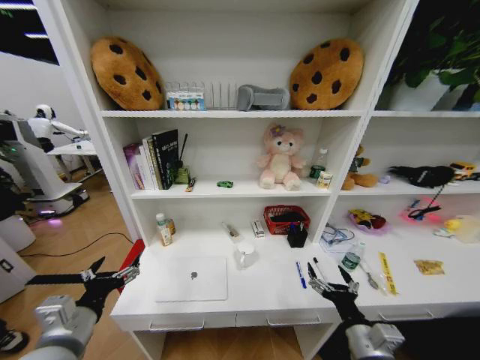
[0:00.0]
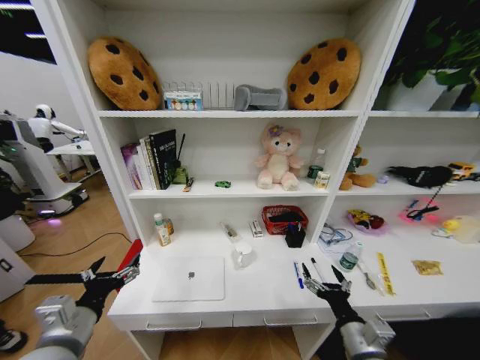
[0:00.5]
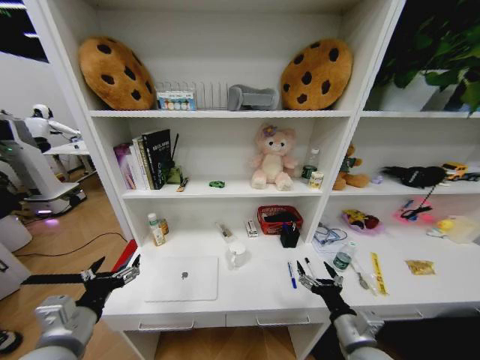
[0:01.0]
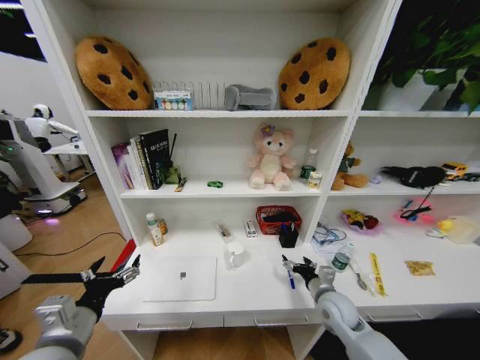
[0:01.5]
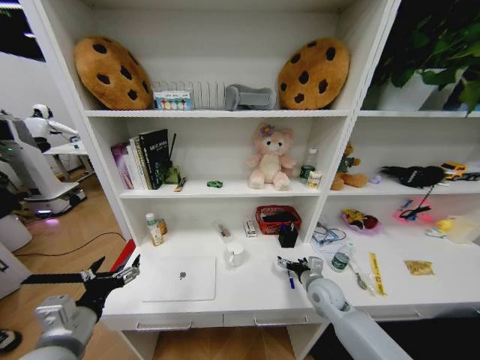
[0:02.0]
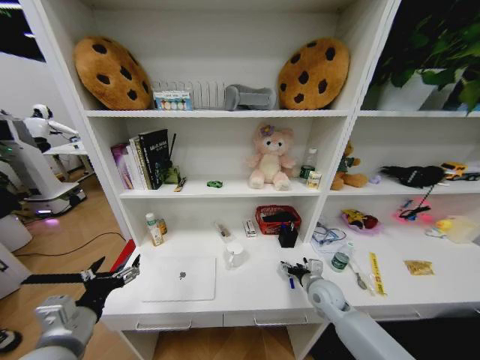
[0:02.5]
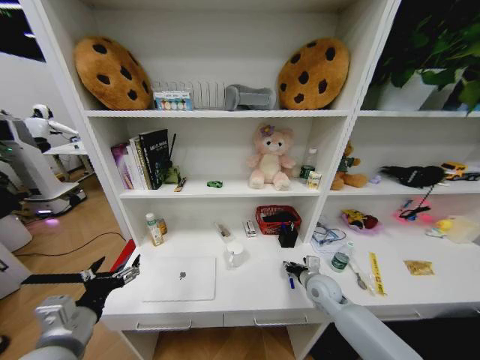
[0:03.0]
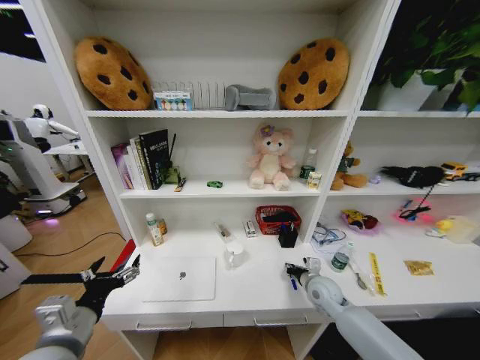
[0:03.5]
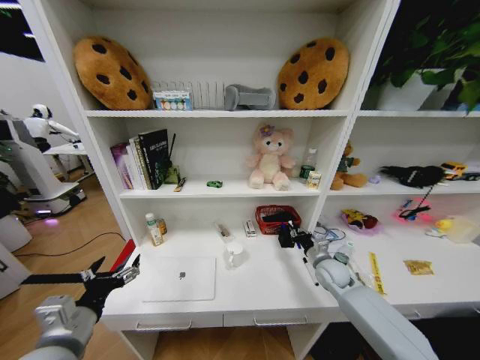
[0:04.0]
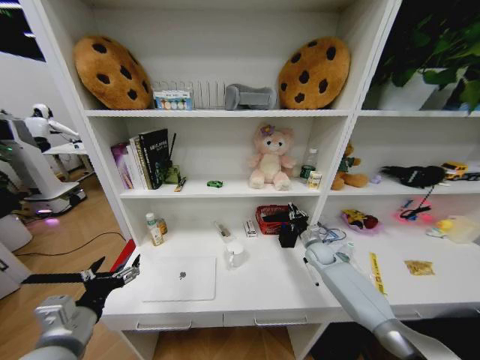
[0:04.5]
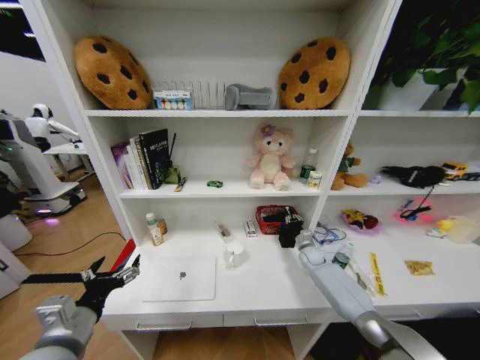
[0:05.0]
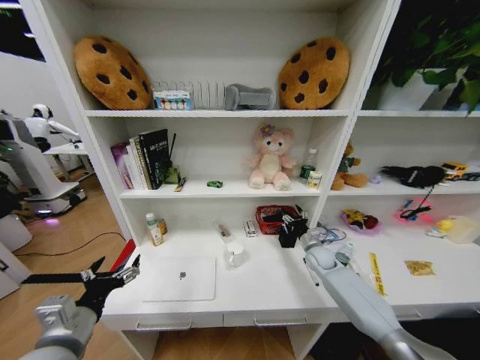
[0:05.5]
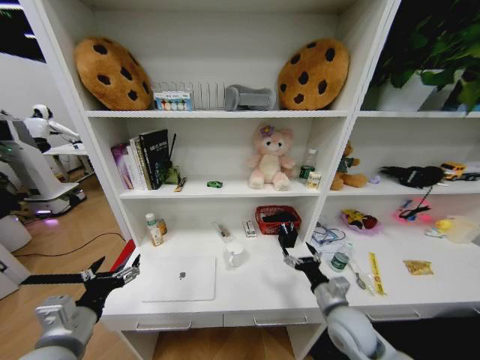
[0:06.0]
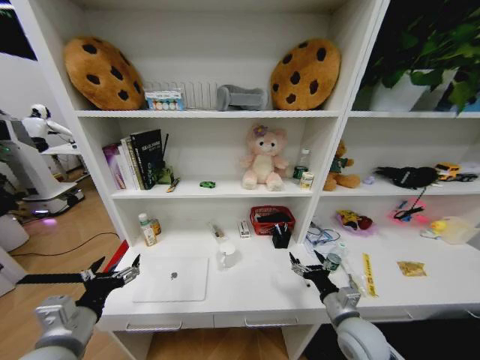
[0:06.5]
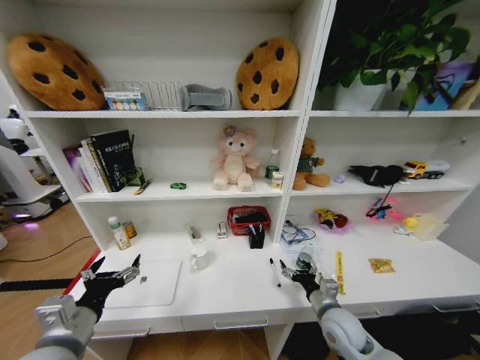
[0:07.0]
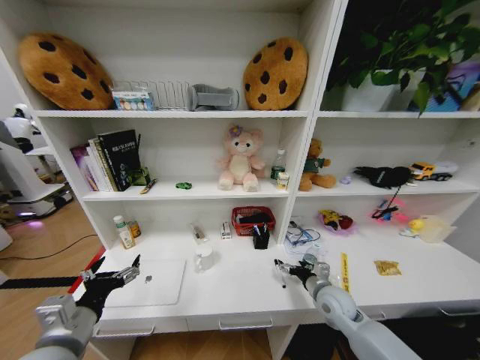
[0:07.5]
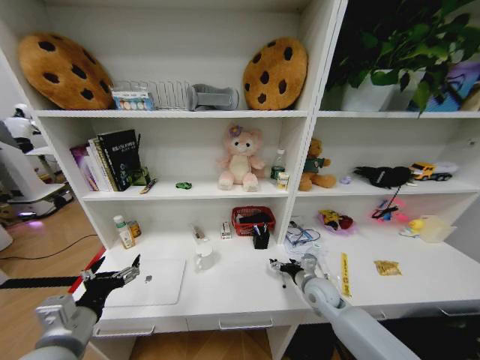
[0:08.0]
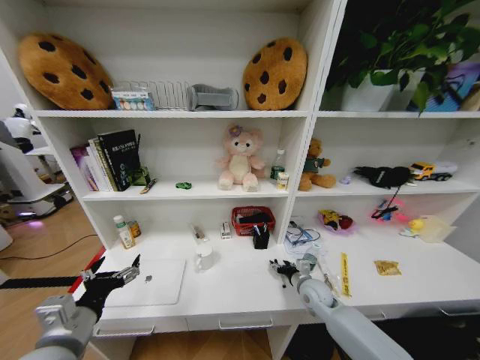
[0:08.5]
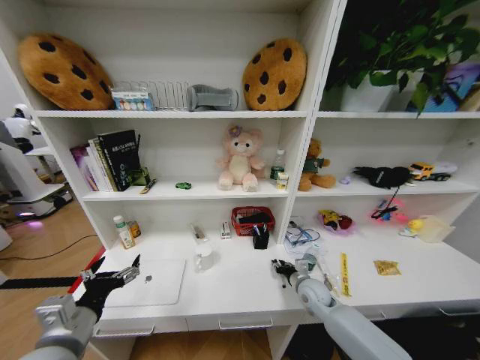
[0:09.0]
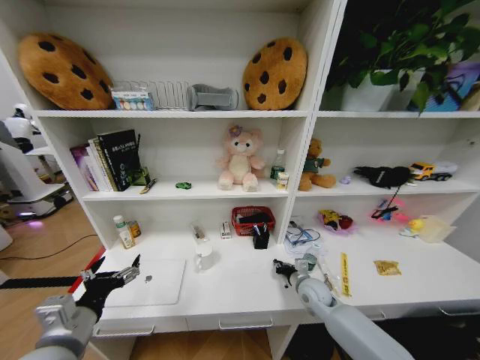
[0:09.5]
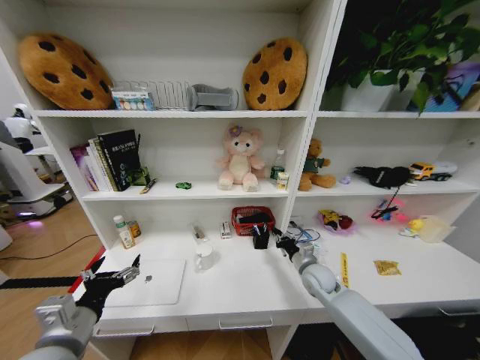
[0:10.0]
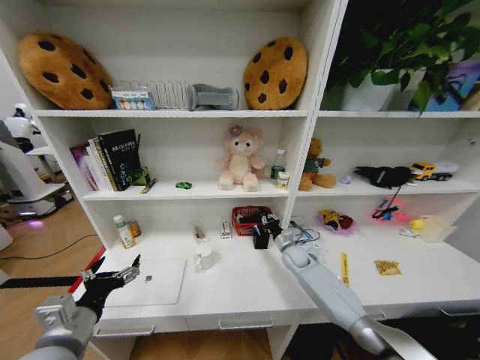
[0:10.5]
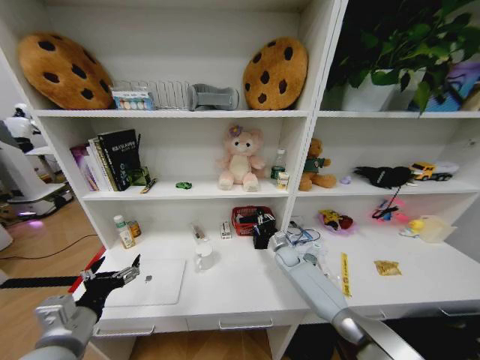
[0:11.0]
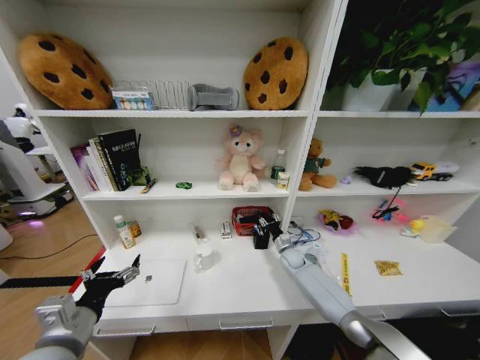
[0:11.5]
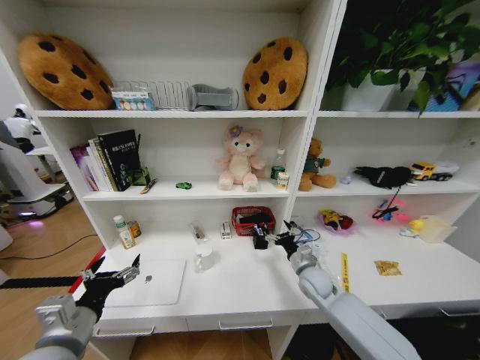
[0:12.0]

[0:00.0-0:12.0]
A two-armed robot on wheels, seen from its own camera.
Task of the whole recording: Organize the objects on the table.
0:00.0 to 0:02.0: The right gripper shifts some 20 cm forward.
0:02.0 to 0:04.0: The right gripper is displaced forward by about 5 cm, and closes.
0:04.0 to 0:06.0: The right gripper goes forward and returns, approximately 10 cm each way, and opens up.
0:06.0 to 0:08.0: The right gripper goes backward and returns, about 10 cm each way.
0:08.0 to 0:10.0: The right gripper closes.
0:10.0 to 0:12.0: The right gripper travels forward and back again, some 10 cm each way, and opens.

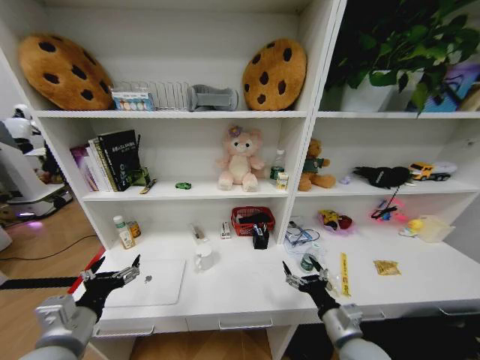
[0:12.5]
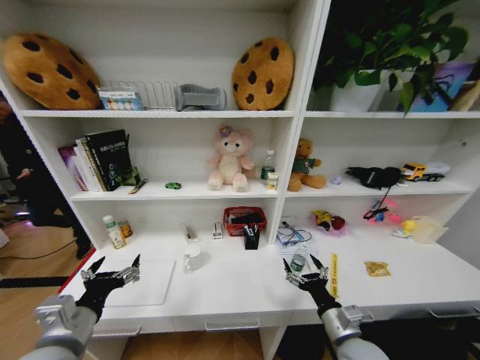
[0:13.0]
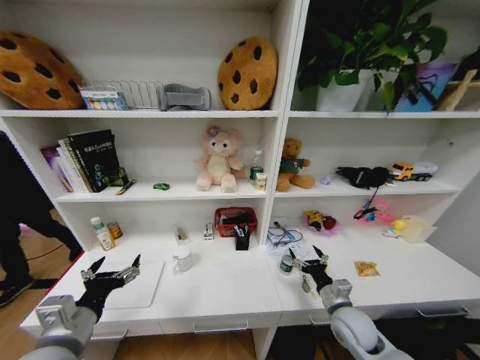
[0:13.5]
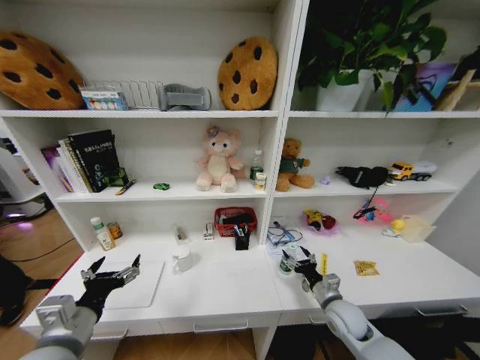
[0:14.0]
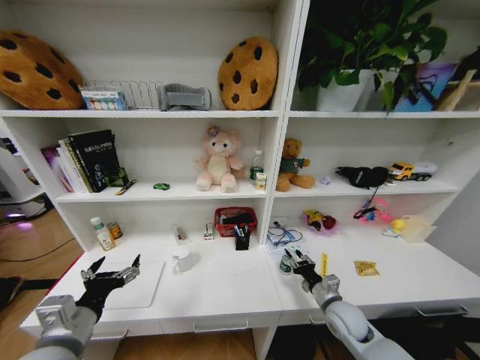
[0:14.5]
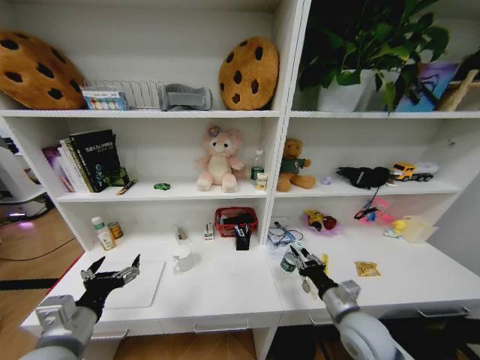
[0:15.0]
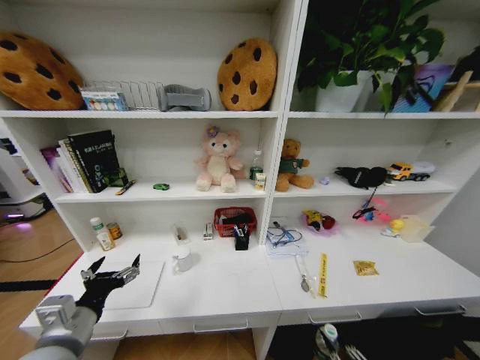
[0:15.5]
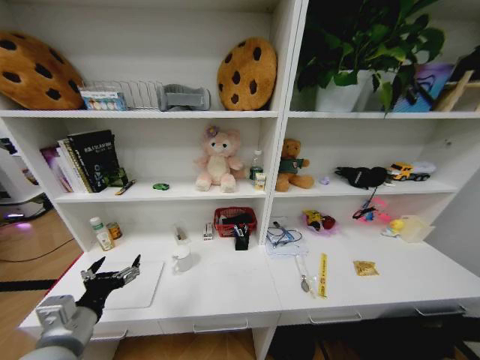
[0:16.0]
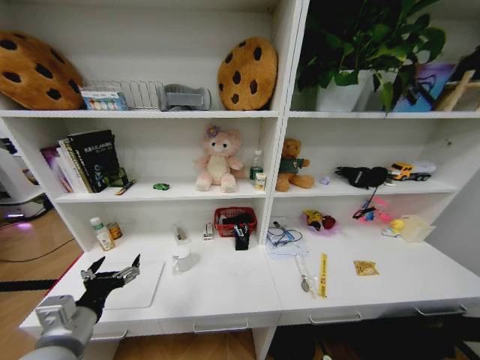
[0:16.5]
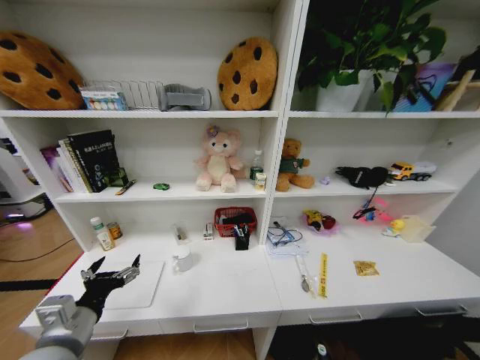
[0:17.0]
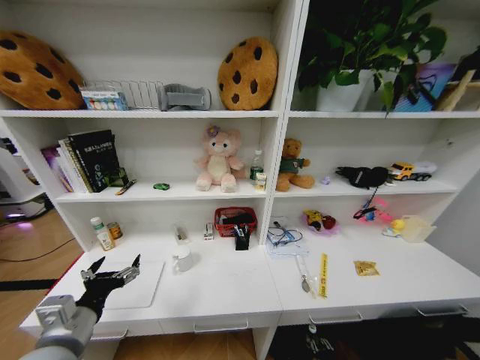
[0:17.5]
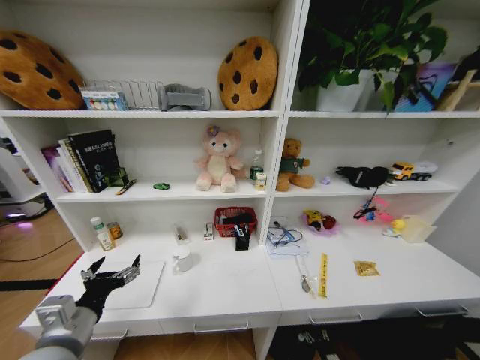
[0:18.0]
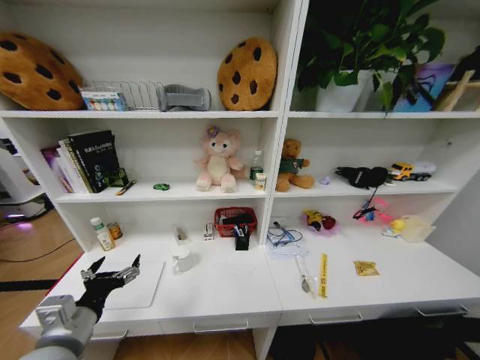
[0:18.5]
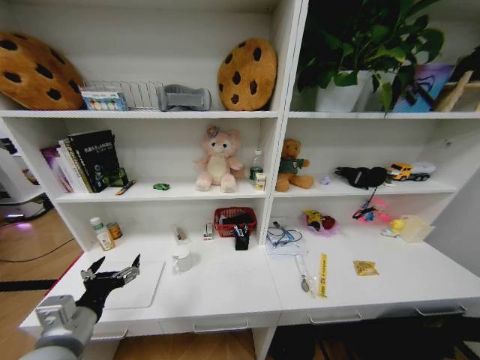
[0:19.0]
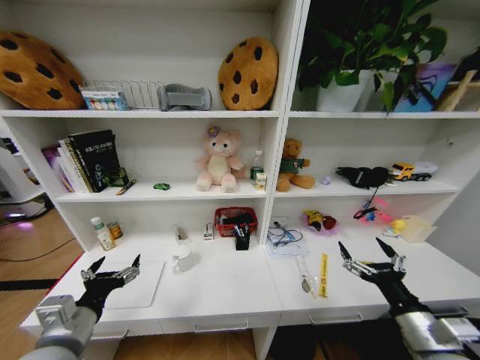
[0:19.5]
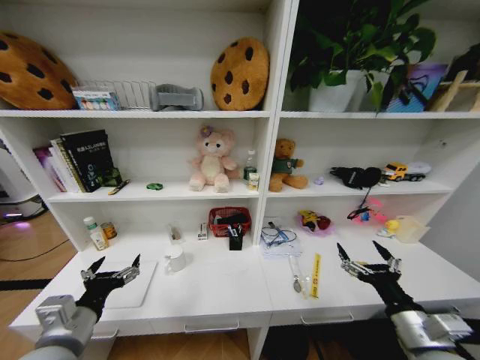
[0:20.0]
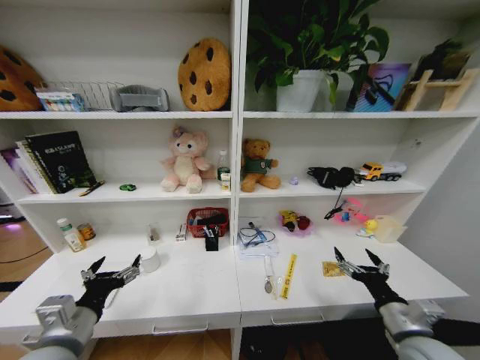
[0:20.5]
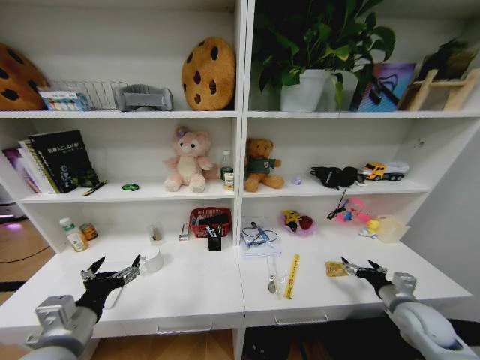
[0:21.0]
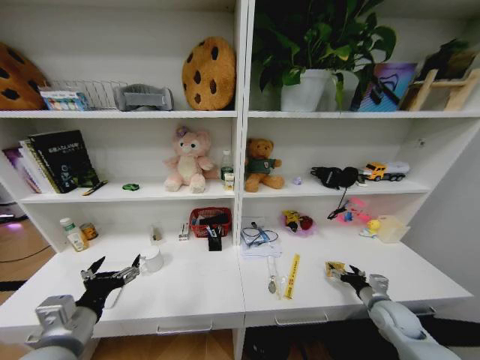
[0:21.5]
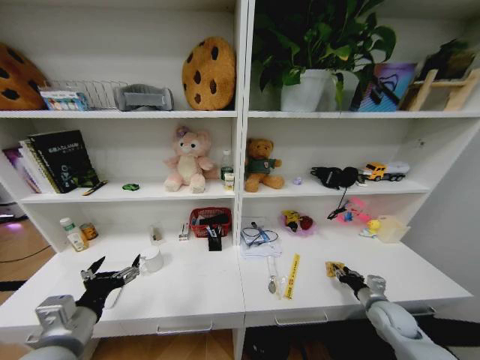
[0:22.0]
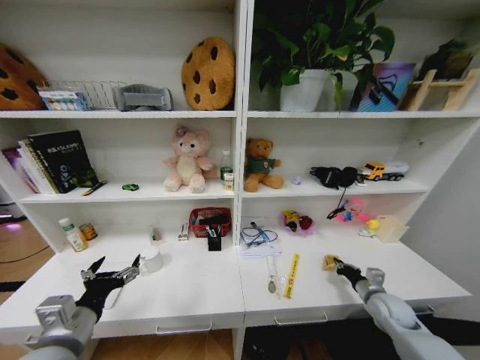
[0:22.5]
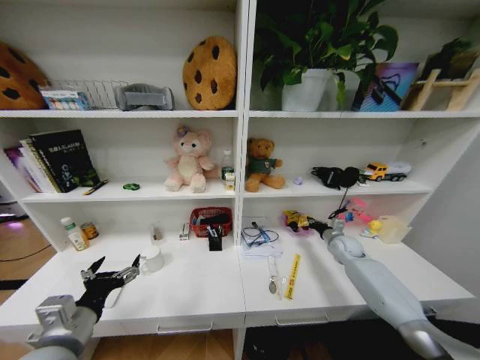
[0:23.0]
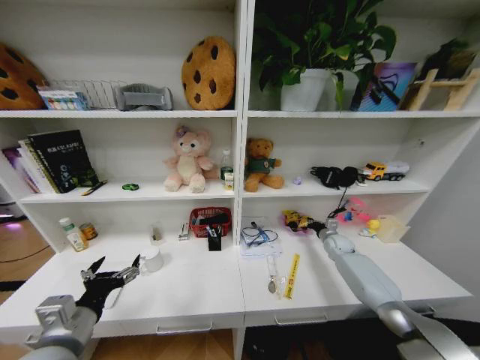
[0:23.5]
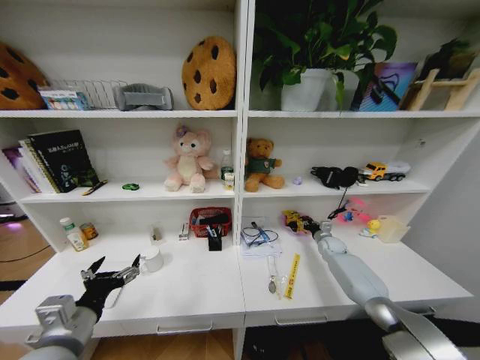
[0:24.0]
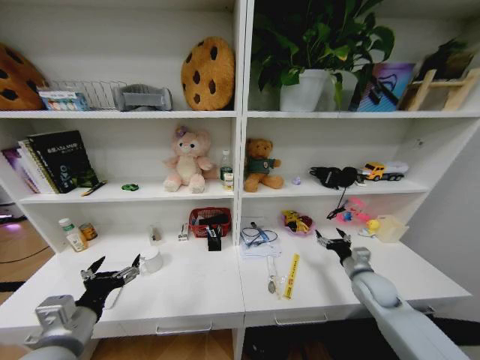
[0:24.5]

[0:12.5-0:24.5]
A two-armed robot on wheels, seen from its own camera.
Task of the whole recording: Organize the objects on the table.
0:12.5 to 0:14.5: The right gripper goes roughly 15 cm forward and downward, and closes its fingers.
0:14.5 to 0:16.5: The right gripper goes about 40 cm backward and downward.
0:18.5 to 0:20.5: The right gripper travels upward and forward by roughly 40 cm.
0:20.5 to 0:22.5: The right gripper travels forward, downward and to the right by approximately 20 cm, and closes.
0:22.5 to 0:24.5: The right gripper heads forward, covering about 10 cm, and opens.

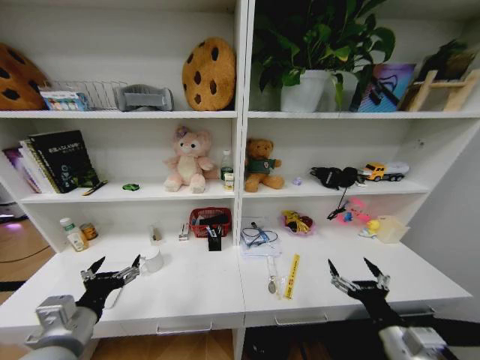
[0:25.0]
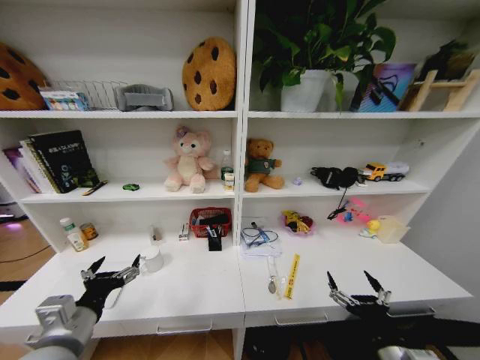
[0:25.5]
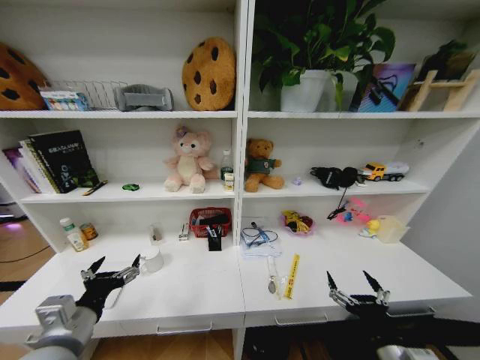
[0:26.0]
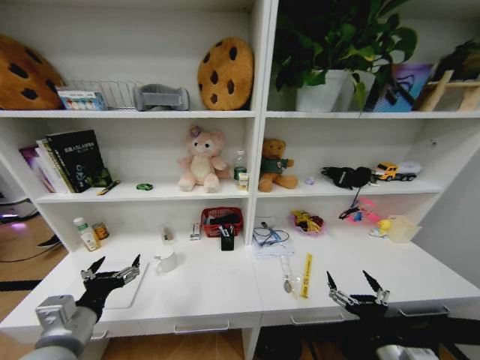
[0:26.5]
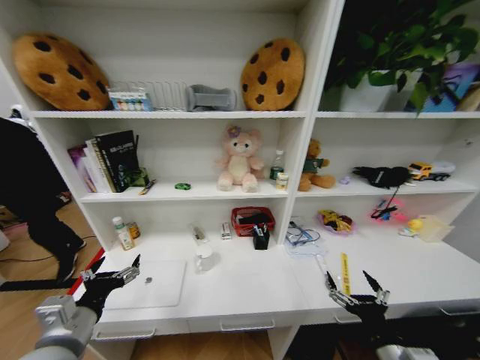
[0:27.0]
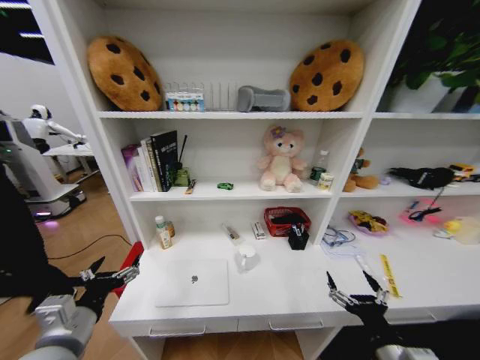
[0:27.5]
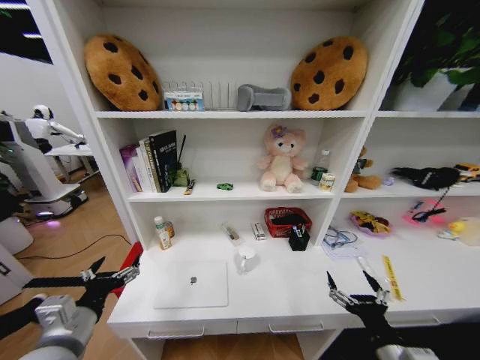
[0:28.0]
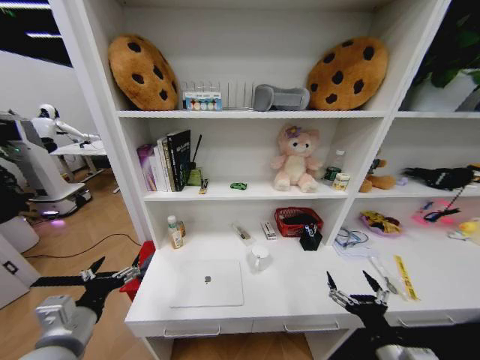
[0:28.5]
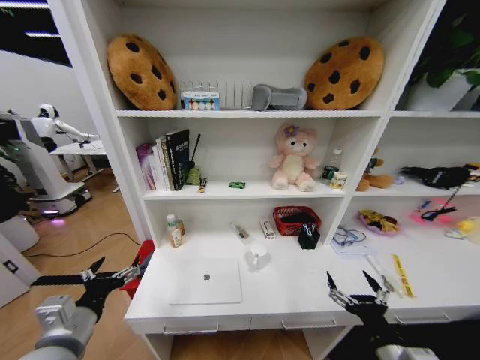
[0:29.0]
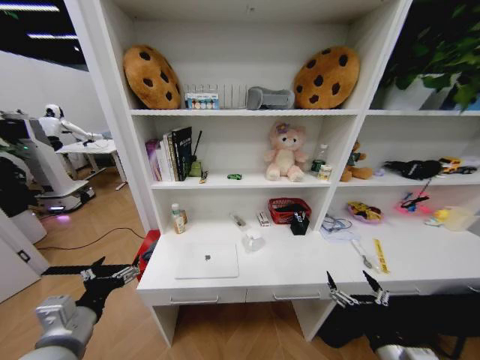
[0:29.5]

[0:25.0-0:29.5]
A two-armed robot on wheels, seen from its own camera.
Task of the whole recording: Organize the objects on the table.
0:25.0 to 0:27.0: The right gripper changes place by about 5 cm.
